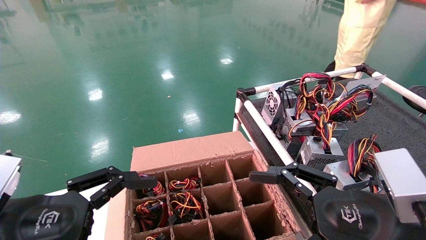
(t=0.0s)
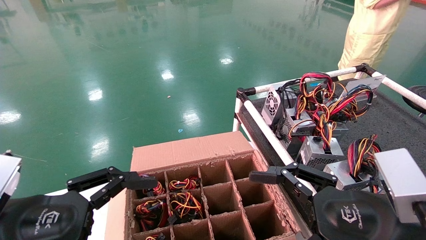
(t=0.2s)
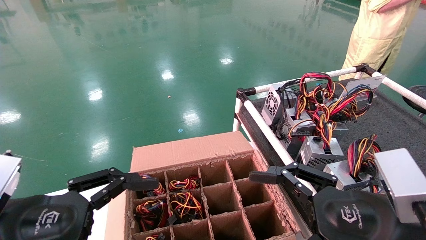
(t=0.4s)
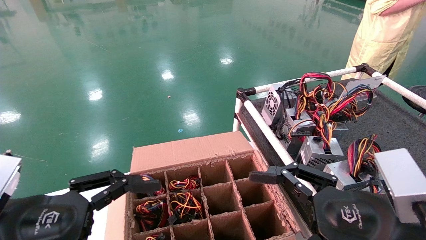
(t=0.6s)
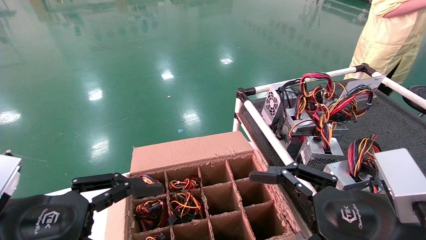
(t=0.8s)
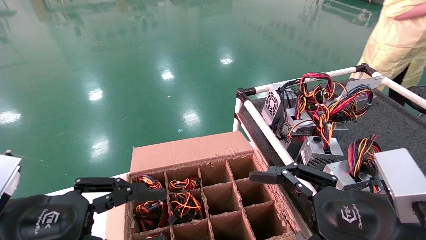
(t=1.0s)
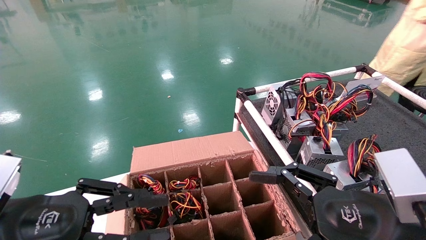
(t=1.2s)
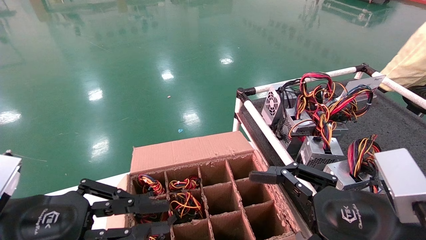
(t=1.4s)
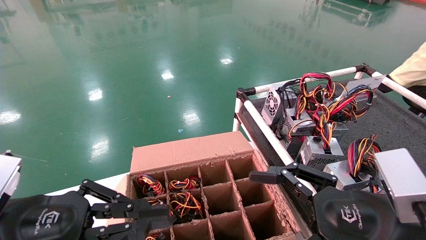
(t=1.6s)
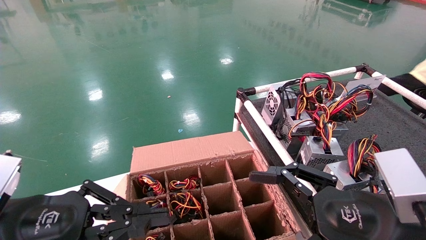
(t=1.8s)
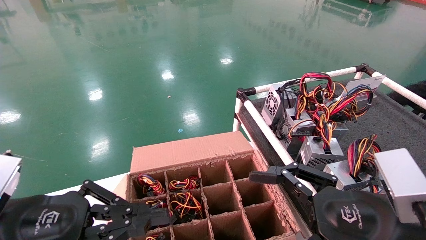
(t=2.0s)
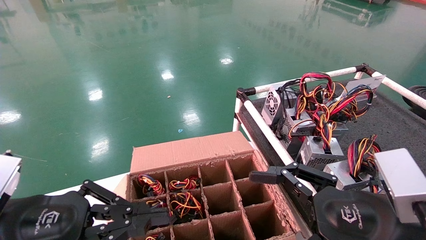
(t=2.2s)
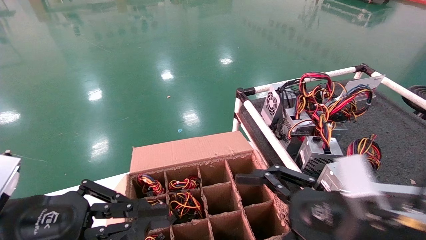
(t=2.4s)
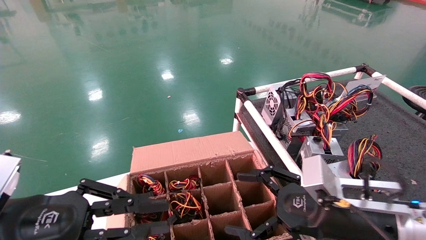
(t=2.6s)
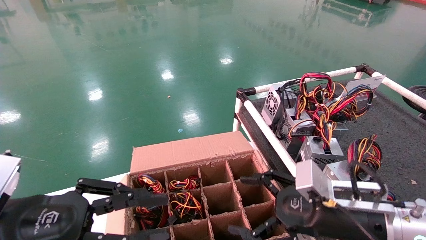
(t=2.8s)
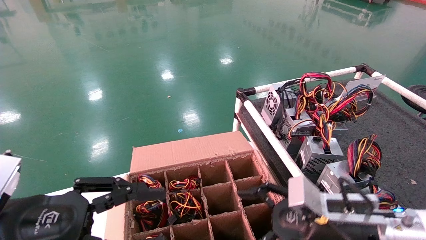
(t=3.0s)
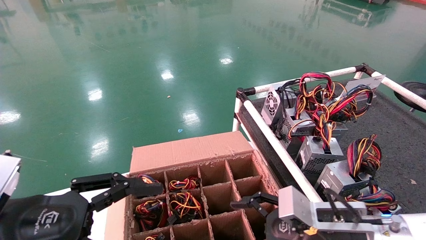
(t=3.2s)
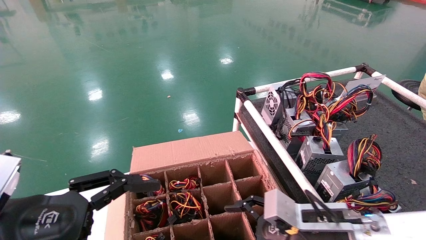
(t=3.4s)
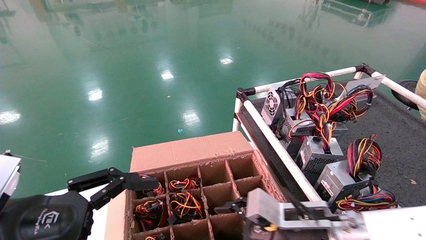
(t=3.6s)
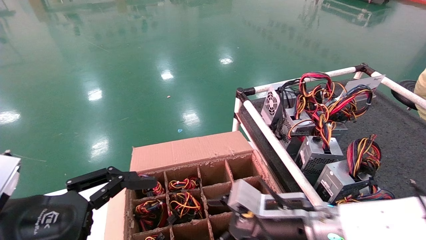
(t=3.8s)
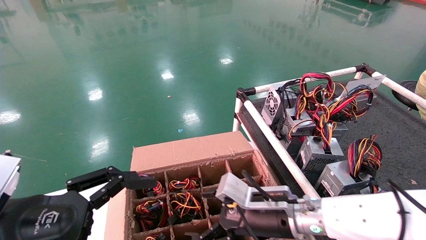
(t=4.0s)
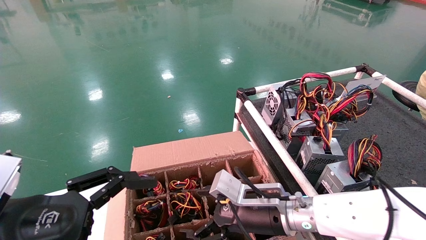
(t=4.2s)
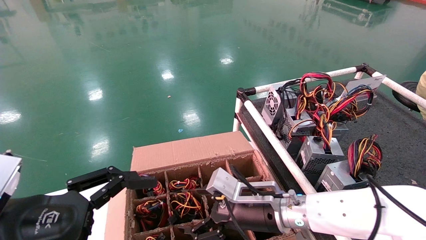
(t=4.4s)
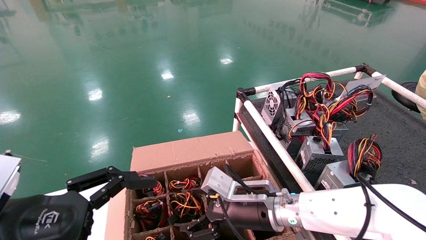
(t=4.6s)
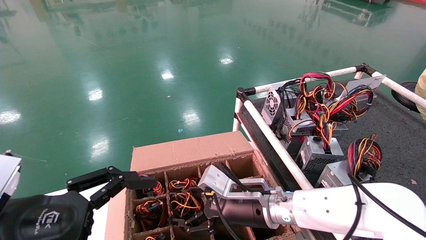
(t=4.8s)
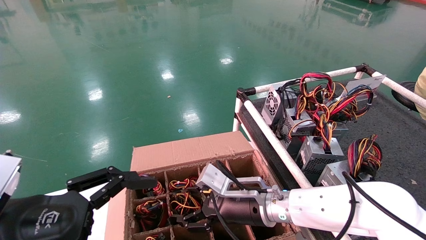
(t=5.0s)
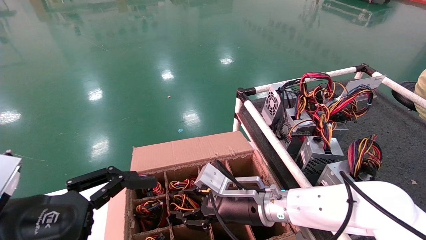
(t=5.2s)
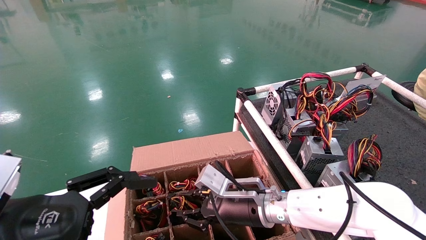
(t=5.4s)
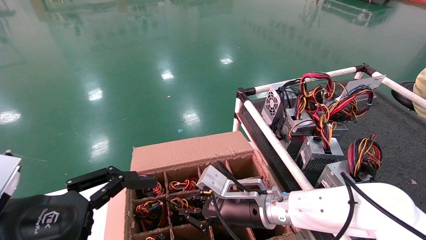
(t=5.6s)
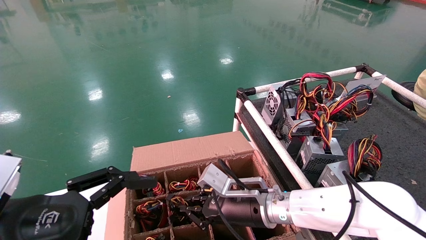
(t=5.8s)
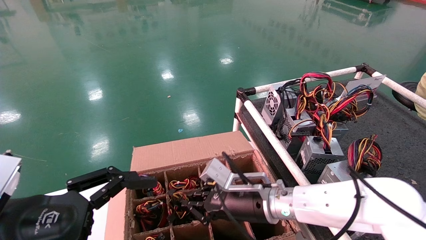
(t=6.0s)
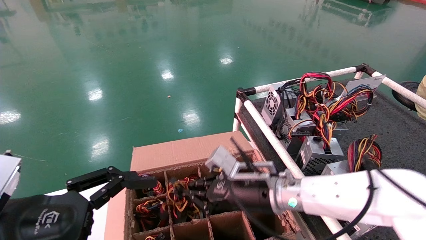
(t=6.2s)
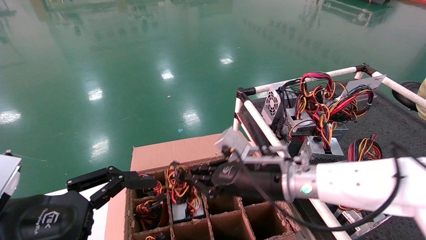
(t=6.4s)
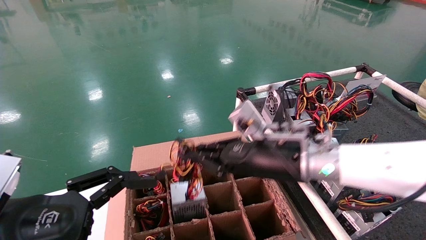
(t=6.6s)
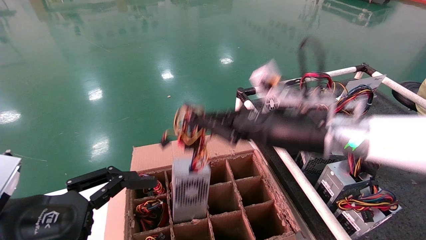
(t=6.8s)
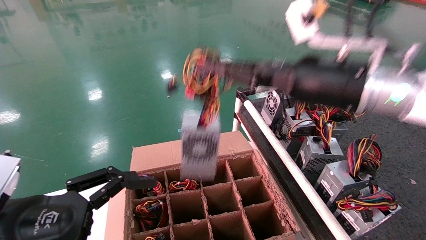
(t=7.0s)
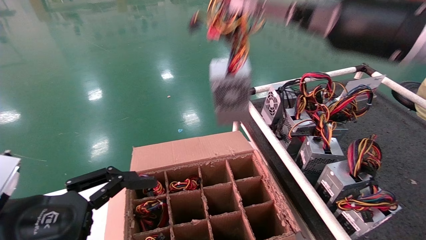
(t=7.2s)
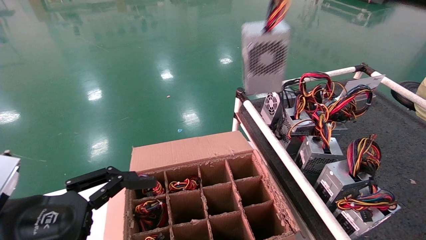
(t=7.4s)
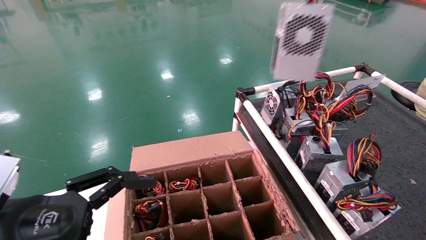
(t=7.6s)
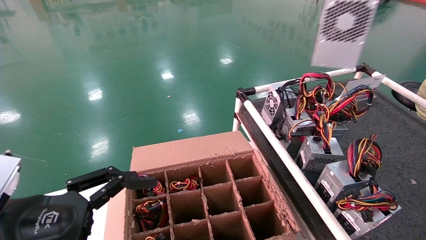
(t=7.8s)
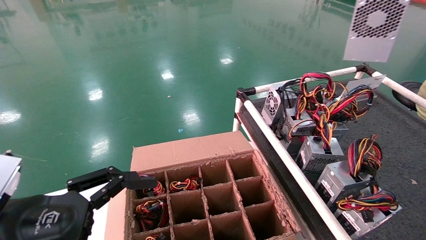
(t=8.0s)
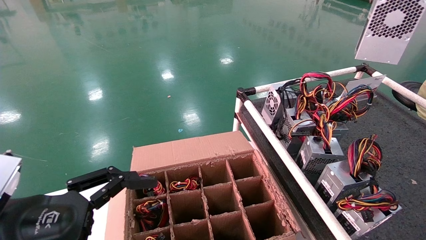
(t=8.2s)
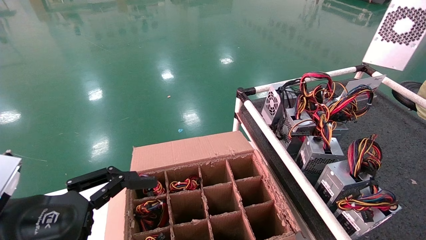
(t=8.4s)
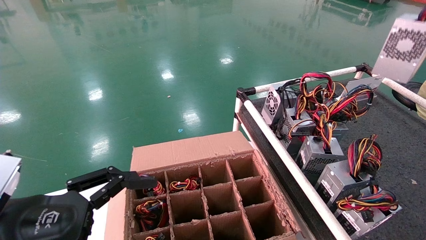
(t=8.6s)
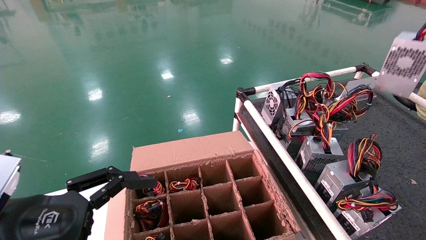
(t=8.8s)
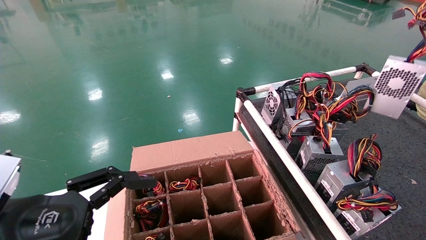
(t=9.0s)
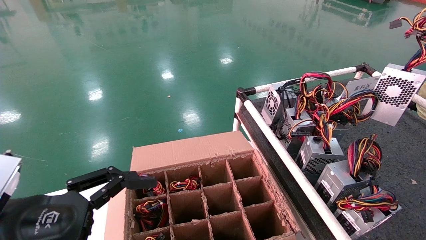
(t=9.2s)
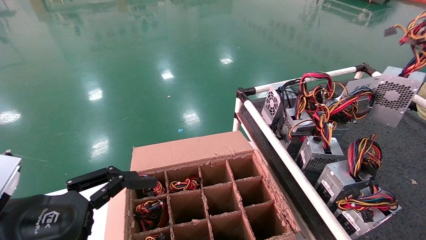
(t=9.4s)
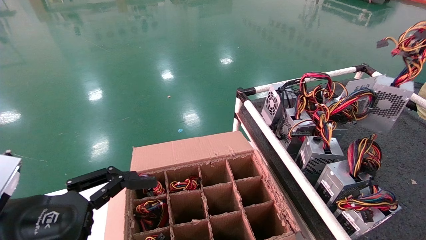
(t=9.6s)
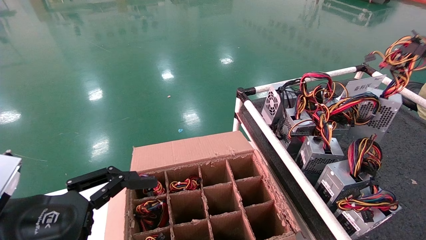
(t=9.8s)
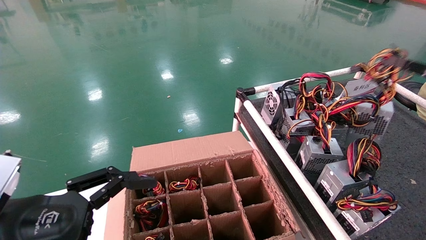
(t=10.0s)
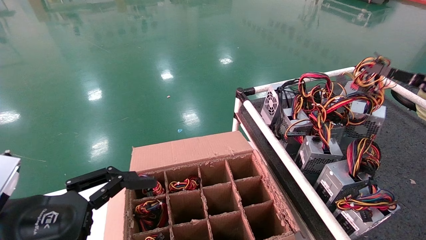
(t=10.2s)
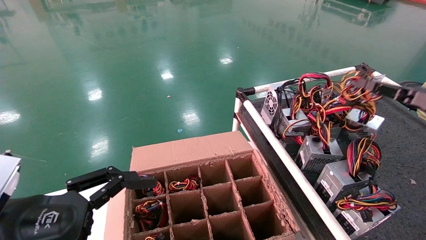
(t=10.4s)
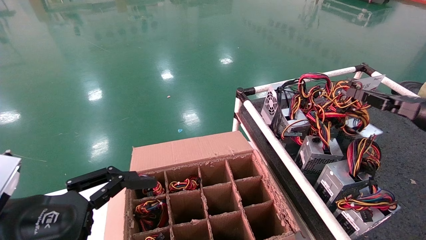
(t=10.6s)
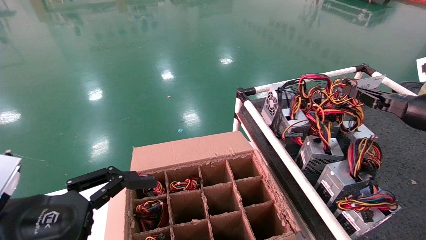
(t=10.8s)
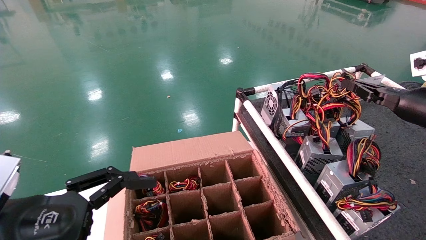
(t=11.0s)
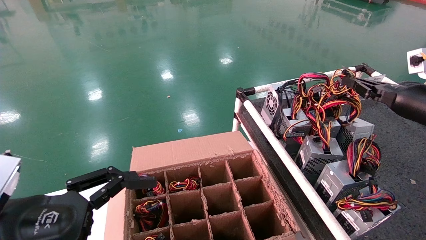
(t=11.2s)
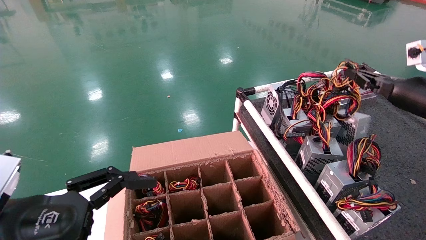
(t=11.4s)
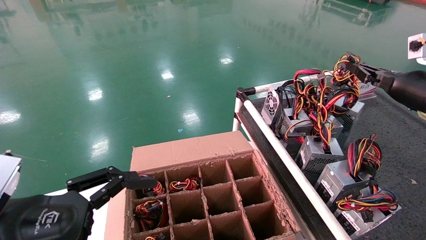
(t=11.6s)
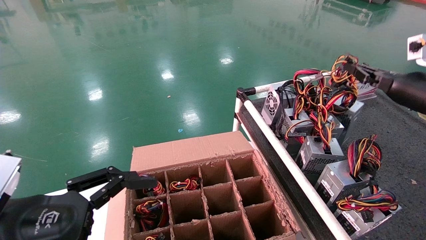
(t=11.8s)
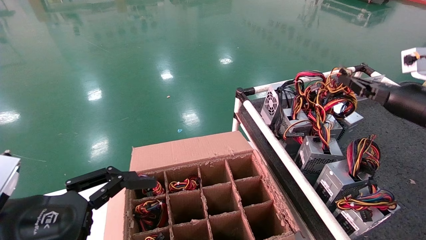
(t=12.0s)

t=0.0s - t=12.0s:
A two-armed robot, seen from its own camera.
Step, t=2.6s - t=5.8s: Grab and lift the power supply from the large box.
t=0.0s - t=1.6s: The left gripper closes.
t=1.6s - t=3.0s: The right gripper shifts about 10 cm forward and downward.
t=3.0s - t=4.4s: The right gripper is displaced to the left and forward by approximately 15 cm. The left gripper opens up.
t=4.4s - t=6.0s: The right gripper closes.
t=6.0s - t=7.6s: The right gripper is displaced upward and to the right by roughly 40 cm.
t=7.6s - t=9.0s: The right gripper goes about 20 cm to the right and downward.
t=9.0s - t=10.4s: The right gripper heads downward and to the left, covering roughly 15 cm.
t=10.4s - t=12.0s: The right gripper shifts approximately 5 cm forward.

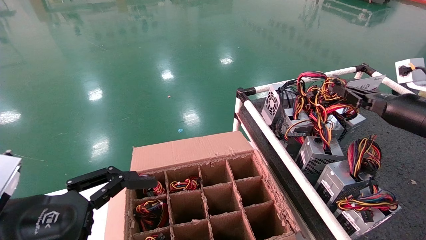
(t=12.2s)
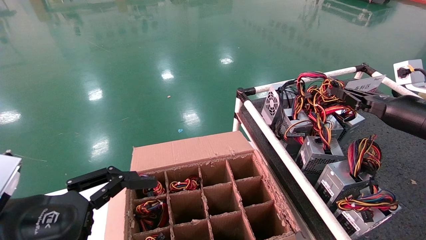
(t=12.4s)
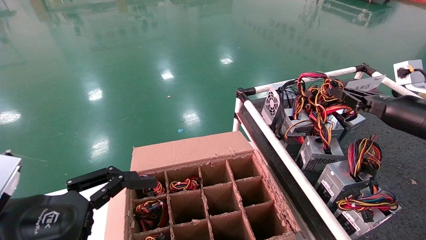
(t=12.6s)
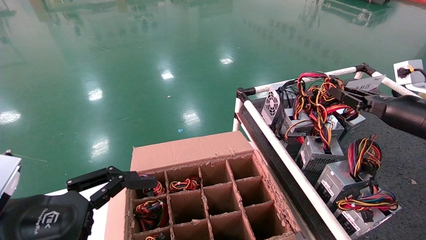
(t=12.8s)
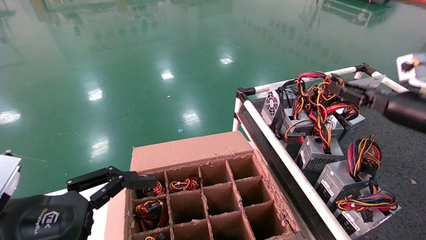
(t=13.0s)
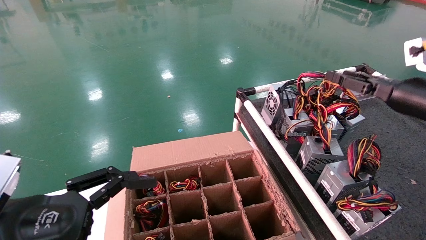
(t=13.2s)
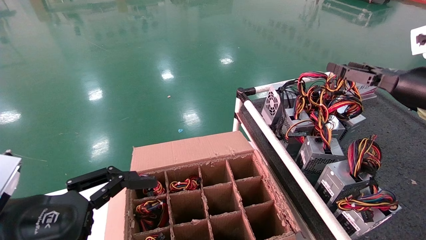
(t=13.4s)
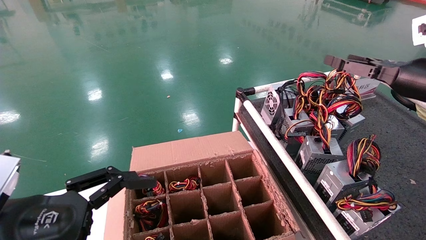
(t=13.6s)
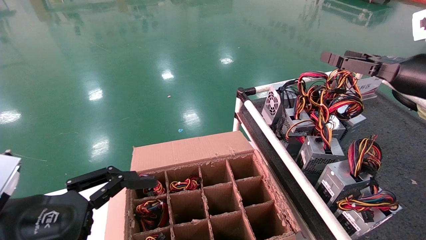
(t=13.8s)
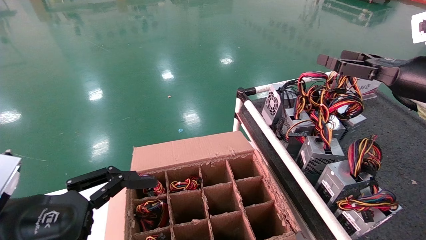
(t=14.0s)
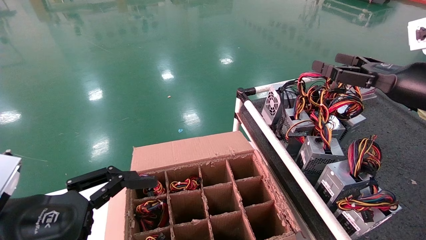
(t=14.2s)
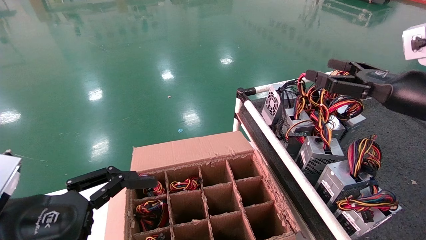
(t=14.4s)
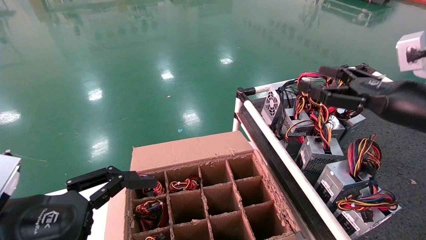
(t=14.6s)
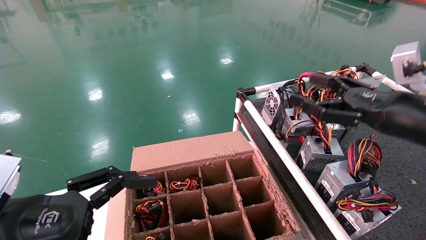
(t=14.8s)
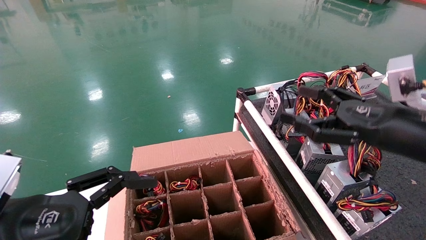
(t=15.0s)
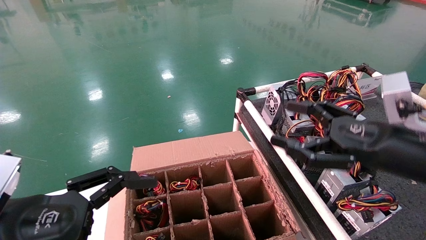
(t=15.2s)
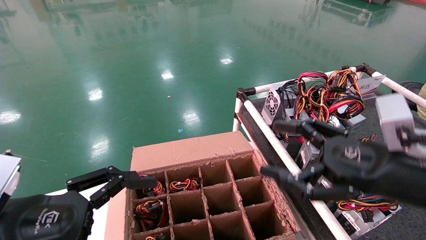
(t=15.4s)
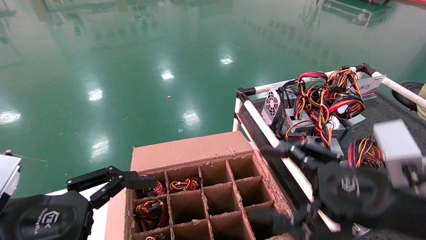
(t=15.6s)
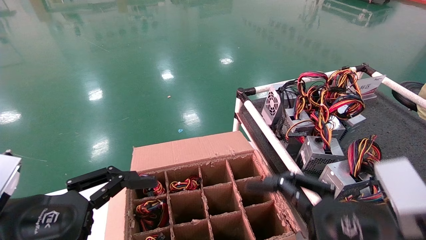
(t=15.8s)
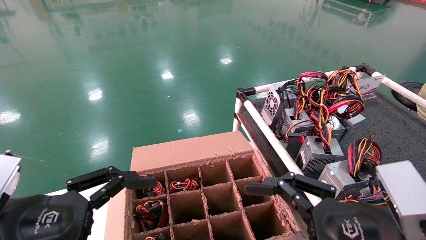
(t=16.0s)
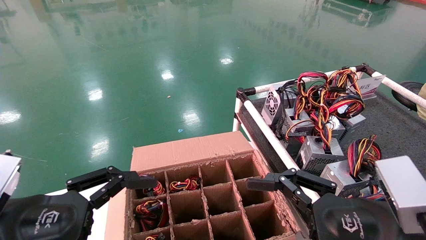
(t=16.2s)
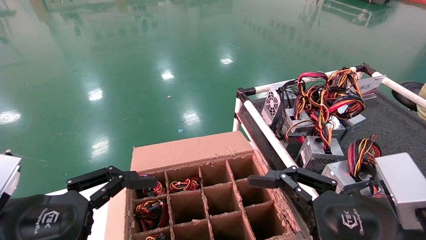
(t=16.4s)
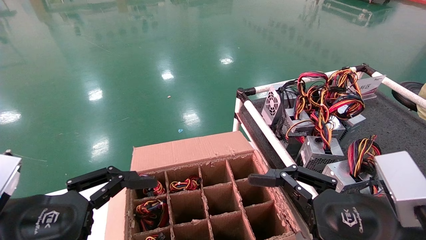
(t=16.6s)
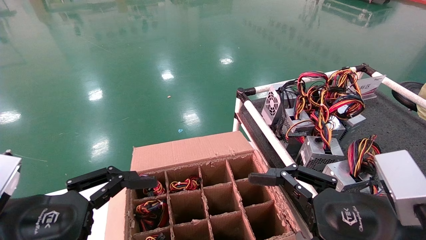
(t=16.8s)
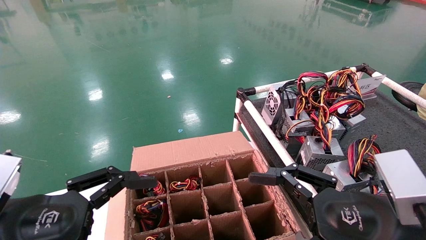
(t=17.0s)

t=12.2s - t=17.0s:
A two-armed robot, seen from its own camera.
t=12.2s - t=13.8s: The right gripper shifts some 5 cm upward, and opens its fingers.
t=13.8s - t=15.4s: The right gripper shifts some 20 cm to the left, downward and backward.
t=15.4s - t=17.0s: The right gripper shifts by approximately 5 cm.
